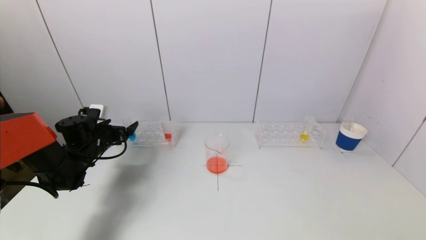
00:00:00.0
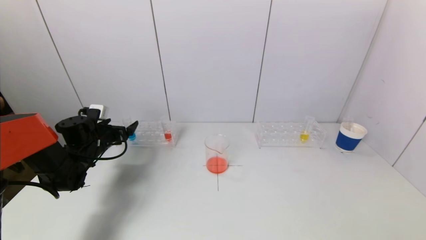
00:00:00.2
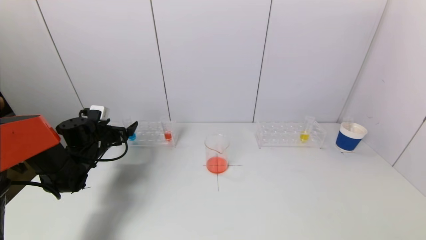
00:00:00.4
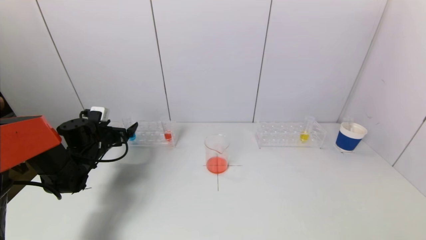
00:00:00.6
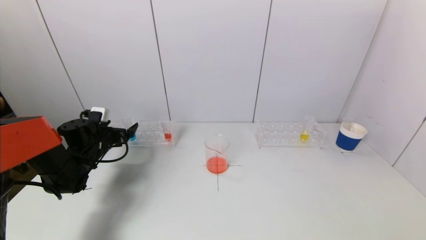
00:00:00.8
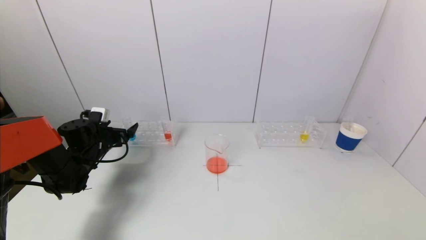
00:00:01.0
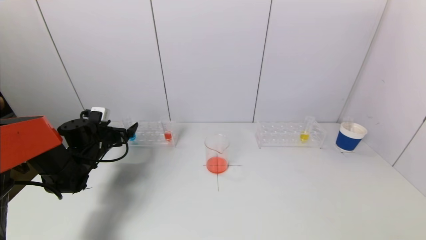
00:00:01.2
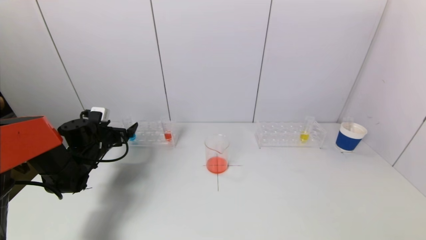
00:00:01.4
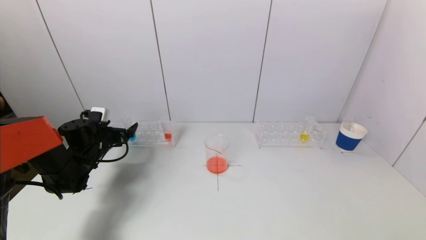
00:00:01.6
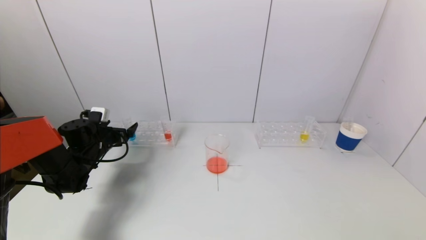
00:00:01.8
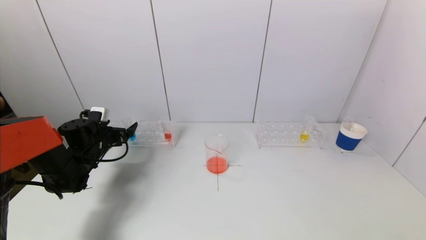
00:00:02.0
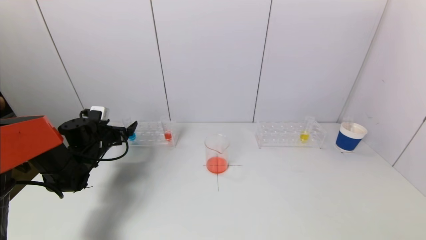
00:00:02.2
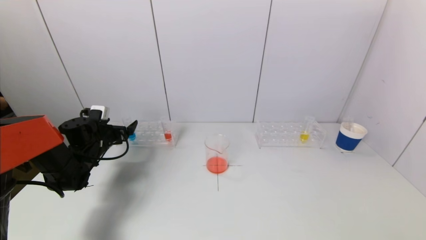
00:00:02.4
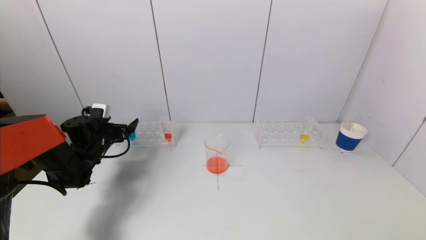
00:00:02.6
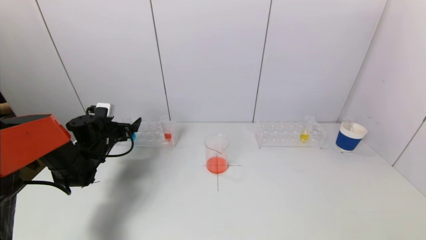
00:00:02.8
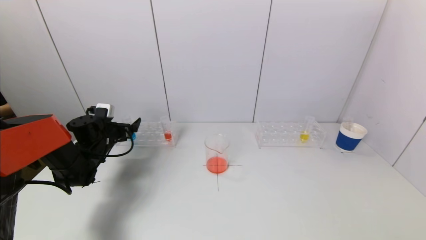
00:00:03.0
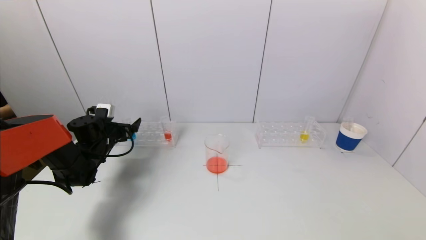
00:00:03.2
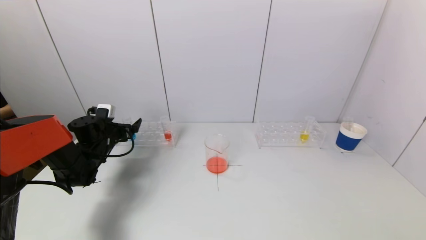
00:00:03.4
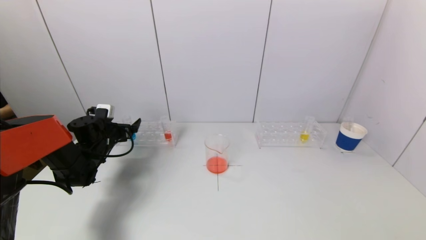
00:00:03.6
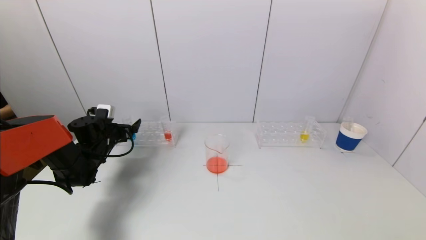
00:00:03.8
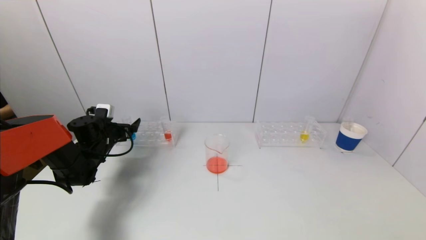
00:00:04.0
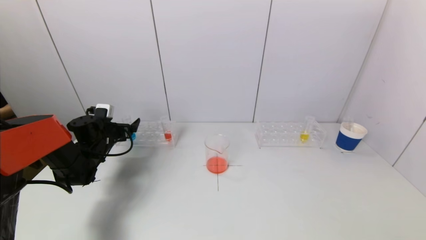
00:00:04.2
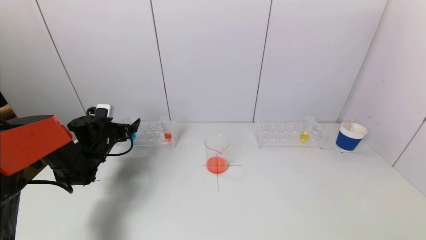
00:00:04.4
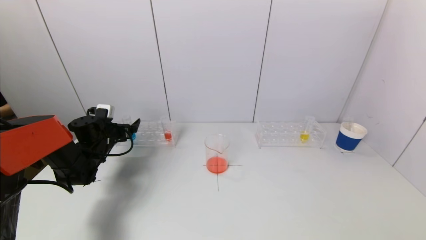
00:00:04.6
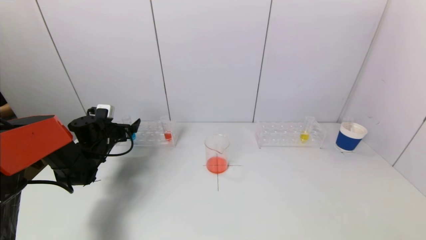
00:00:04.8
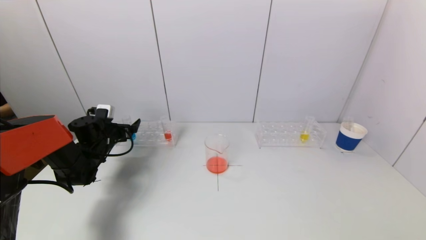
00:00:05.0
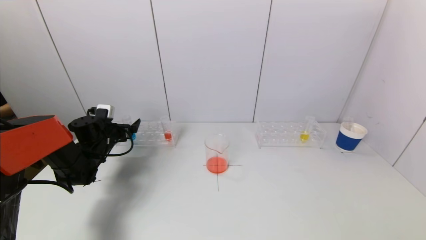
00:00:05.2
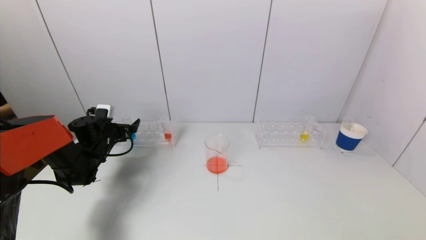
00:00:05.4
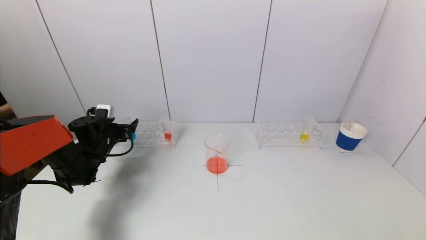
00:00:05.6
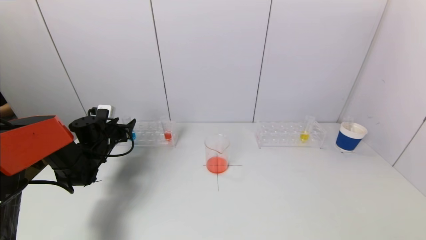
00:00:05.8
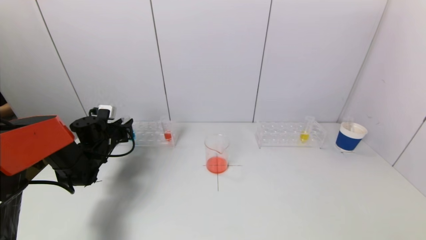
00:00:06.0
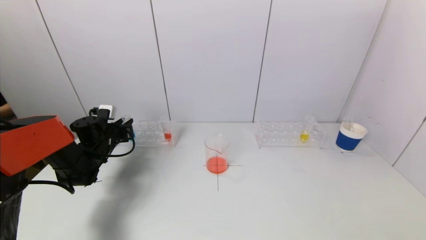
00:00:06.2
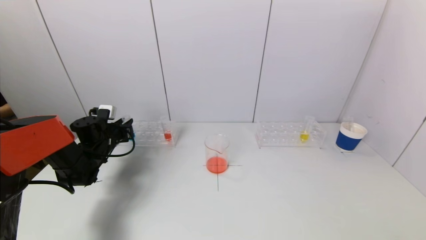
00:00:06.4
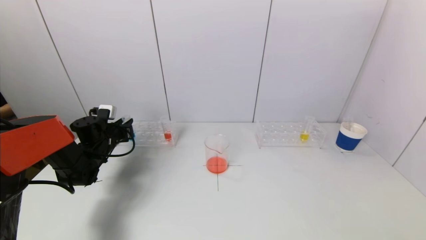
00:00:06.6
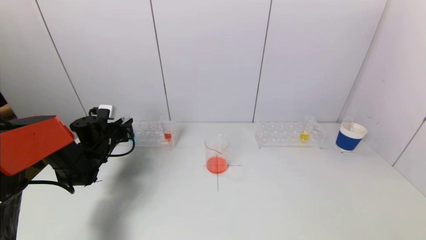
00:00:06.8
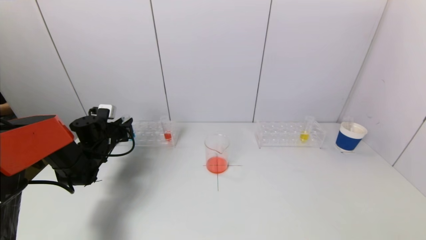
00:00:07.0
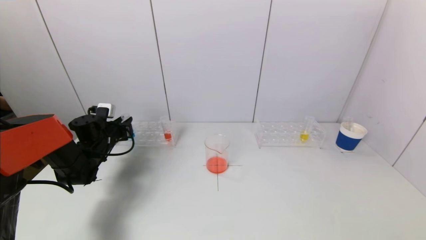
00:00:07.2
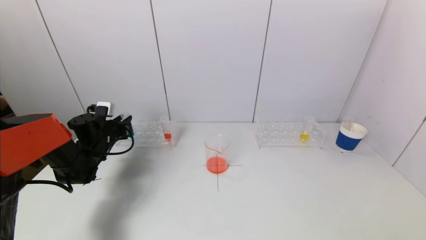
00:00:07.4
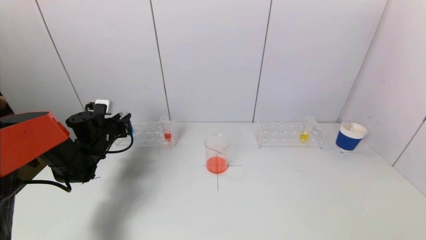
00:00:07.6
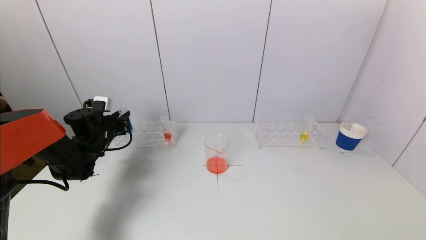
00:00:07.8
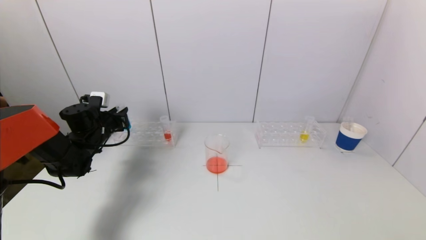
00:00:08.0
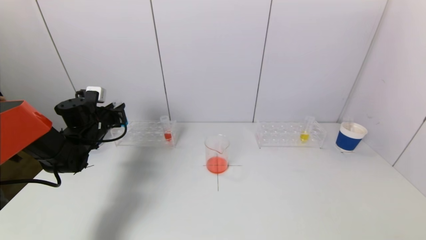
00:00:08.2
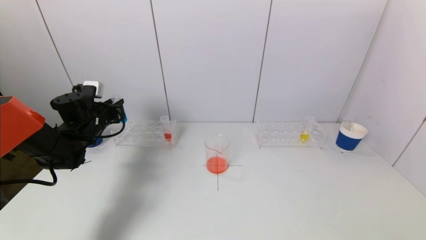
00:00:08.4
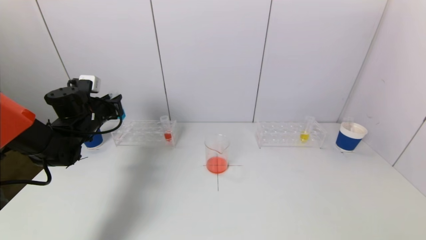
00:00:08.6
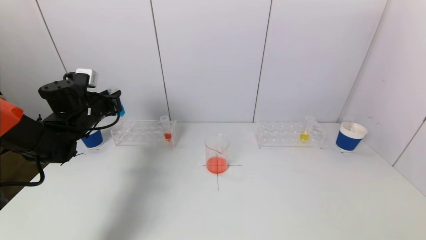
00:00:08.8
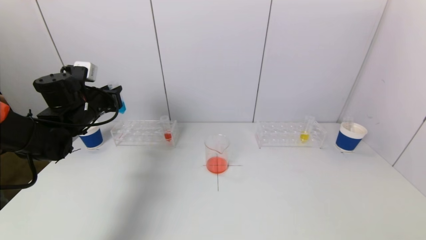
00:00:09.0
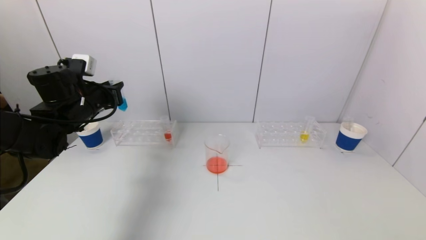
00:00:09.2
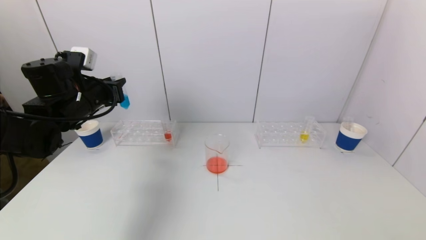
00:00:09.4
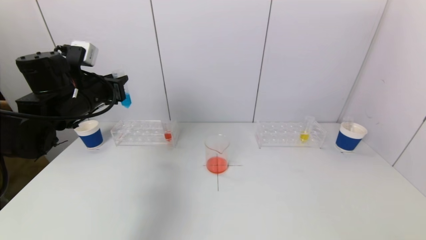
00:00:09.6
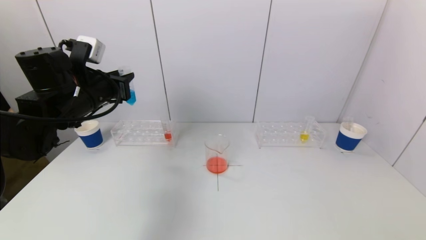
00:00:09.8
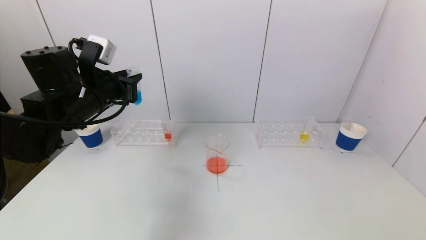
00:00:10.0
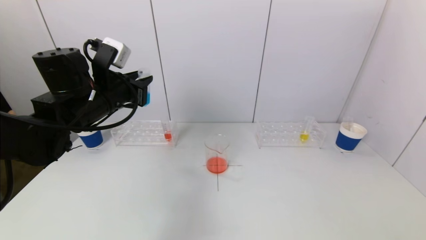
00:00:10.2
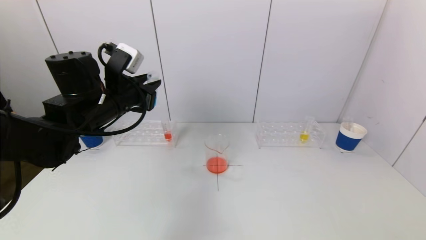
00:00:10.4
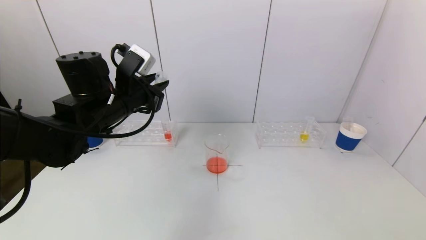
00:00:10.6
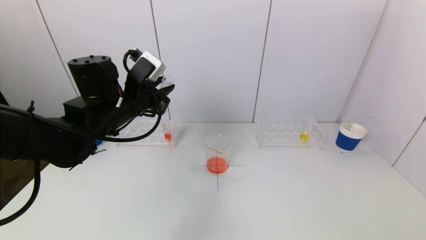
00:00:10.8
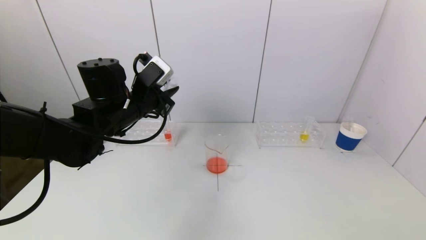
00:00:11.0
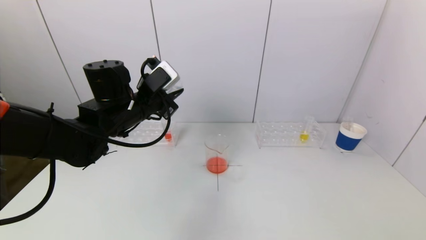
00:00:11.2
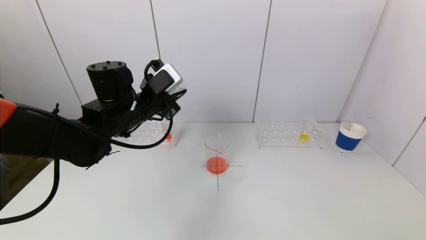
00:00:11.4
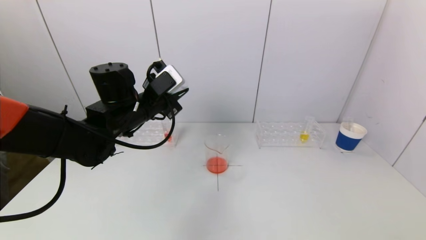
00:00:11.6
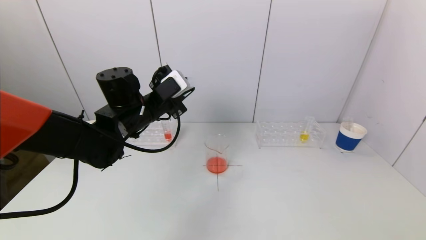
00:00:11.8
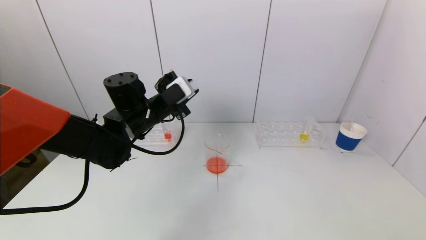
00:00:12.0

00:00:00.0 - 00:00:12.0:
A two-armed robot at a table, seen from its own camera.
Task of the whole recording: pick up a test tube with pigment on left test tube rack and a test tube with pigment on right test tube rack by grippers and pour them into the beaker.
Step, 00:00:00.0 - 00:00:06.4: Grasp the blue reagent with the left gripper.
00:00:00.0 - 00:00:01.6: Both grippers stay about where they are.
00:00:01.6 - 00:00:03.0: The grippers make only small movements.
00:00:03.0 - 00:00:04.4: Neither gripper changes place.
00:00:04.4 - 00:00:06.0: The left gripper closes.
00:00:06.0 - 00:00:07.6: The grippers stay close to where they were, moving slightly.
00:00:07.6 - 00:00:09.0: The left gripper goes some 10 cm upward.
00:00:09.0 - 00:00:10.4: The left gripper is displaced to the right, backward and upward by roughly 15 cm.
00:00:10.4 - 00:00:12.0: The left gripper goes roughly 5 cm to the right.

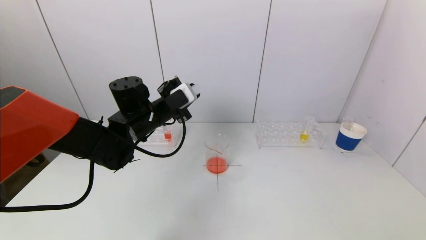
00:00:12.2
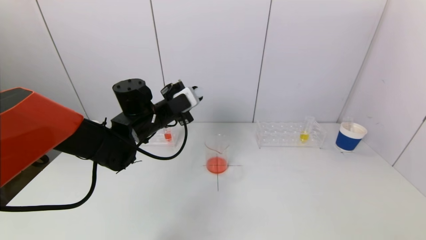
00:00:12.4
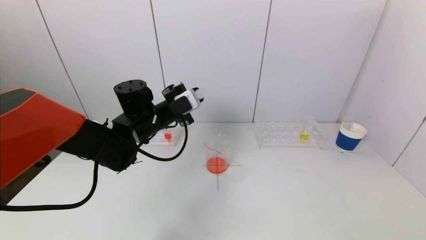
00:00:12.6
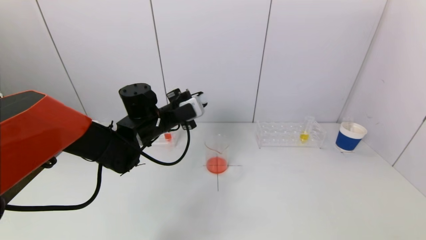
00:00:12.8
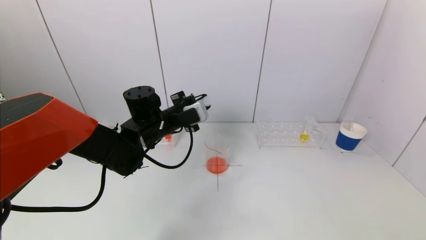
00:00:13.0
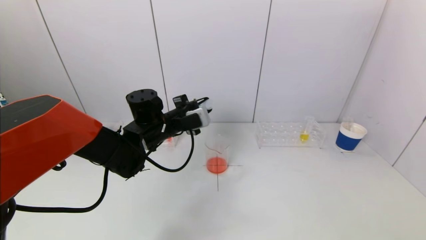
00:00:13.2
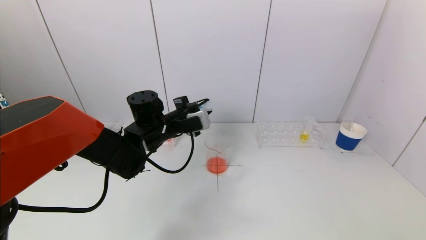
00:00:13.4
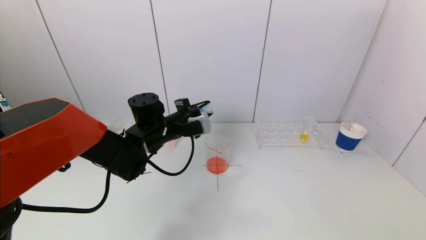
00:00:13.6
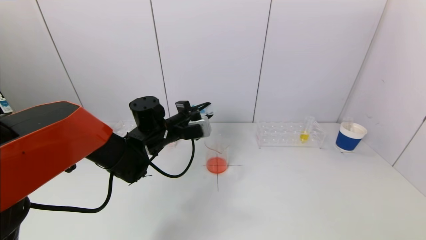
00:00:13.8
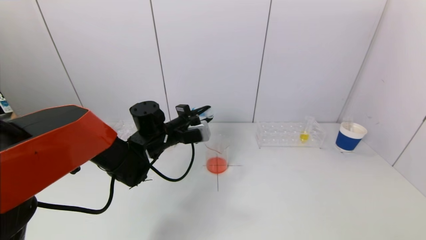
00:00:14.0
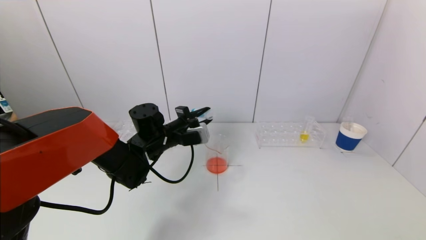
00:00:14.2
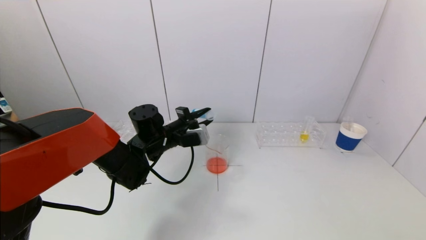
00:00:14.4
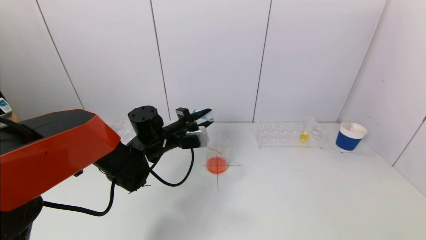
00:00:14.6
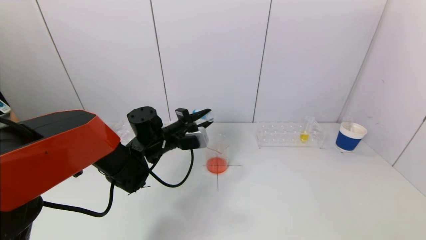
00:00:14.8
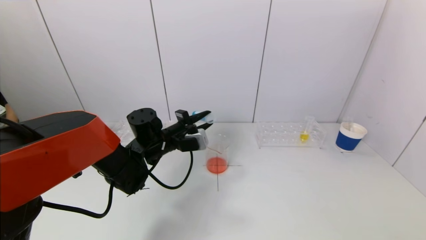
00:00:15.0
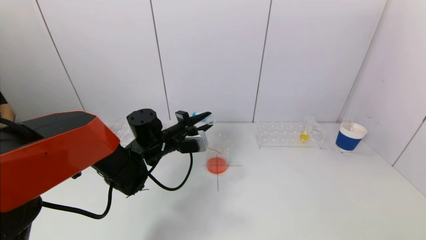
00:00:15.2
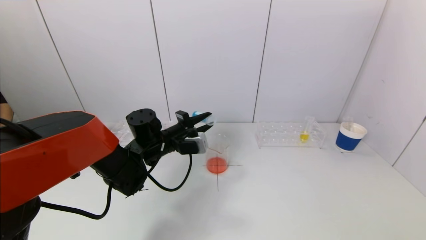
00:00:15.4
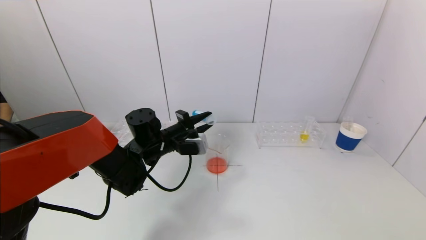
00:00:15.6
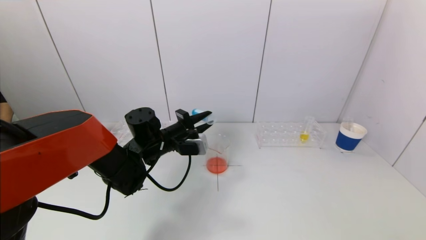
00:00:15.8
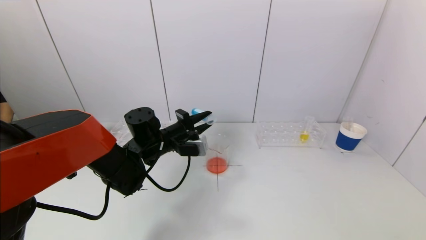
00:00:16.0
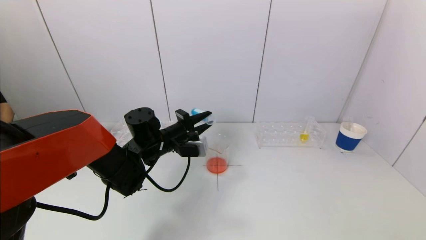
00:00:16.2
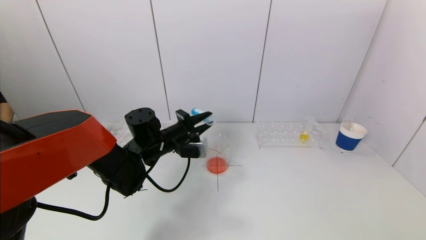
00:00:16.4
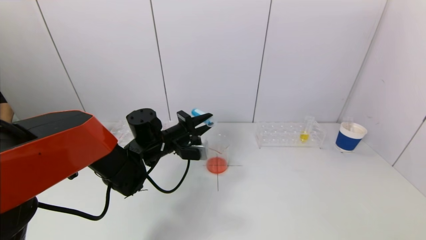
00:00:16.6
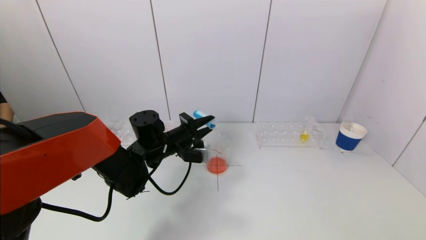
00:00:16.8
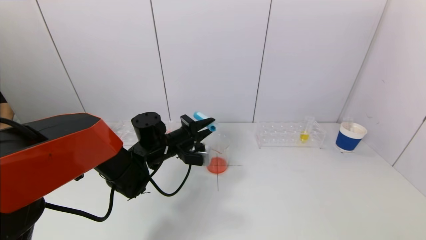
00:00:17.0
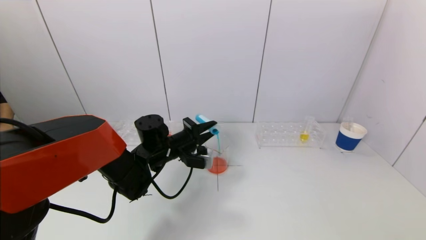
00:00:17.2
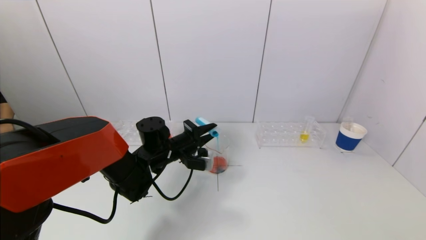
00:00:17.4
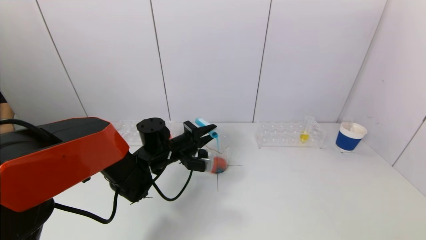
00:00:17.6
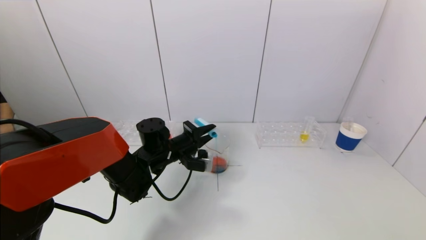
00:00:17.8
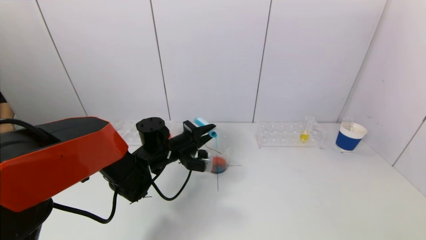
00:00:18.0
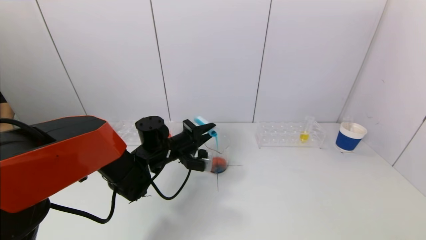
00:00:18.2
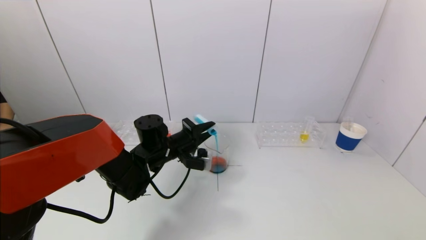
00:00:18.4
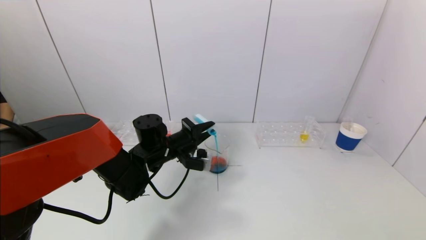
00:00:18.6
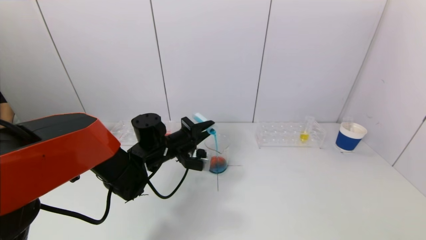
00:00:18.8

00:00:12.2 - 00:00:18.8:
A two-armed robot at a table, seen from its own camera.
Task of the whole recording: pick up a test tube with pigment on left test tube rack and a test tube with pigment on right test tube rack by grippers and pour them into the beaker.
00:00:12.2 - 00:00:13.8: The left gripper goes about 5 cm downward.
00:00:13.8 - 00:00:17.2: There are only small adjustments of the grippers.
00:00:17.2 - 00:00:18.8: The grippers stay close to where they were, moving slightly.
